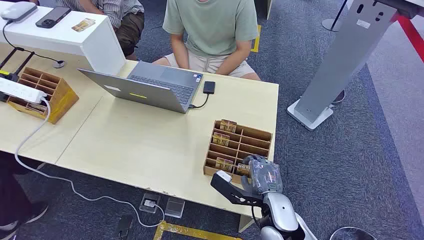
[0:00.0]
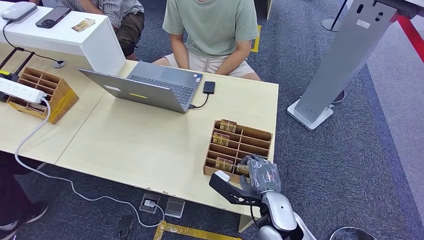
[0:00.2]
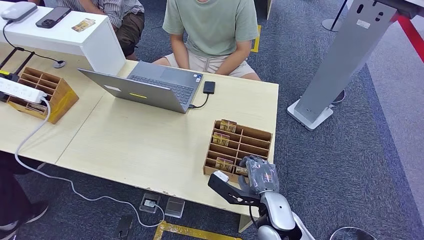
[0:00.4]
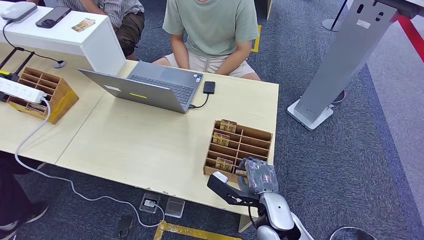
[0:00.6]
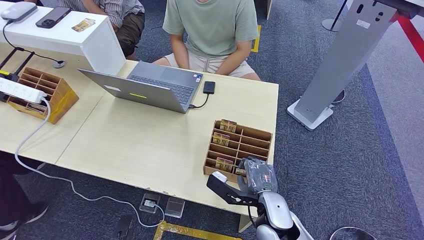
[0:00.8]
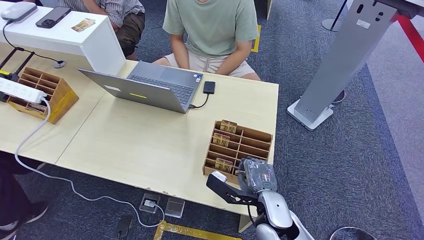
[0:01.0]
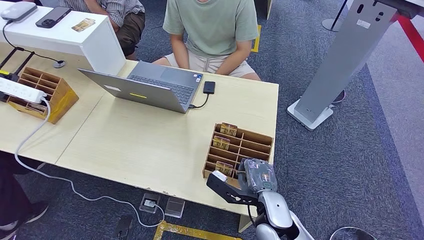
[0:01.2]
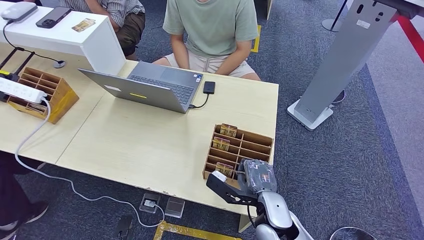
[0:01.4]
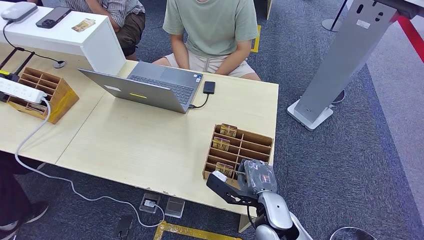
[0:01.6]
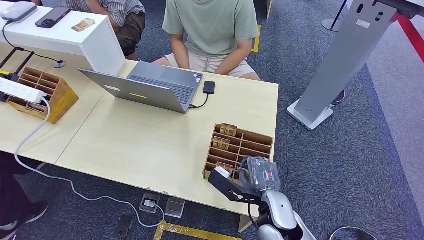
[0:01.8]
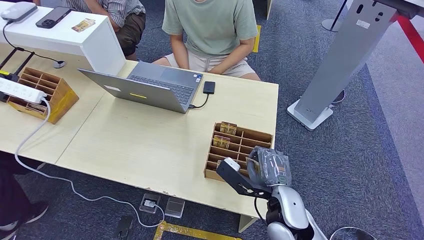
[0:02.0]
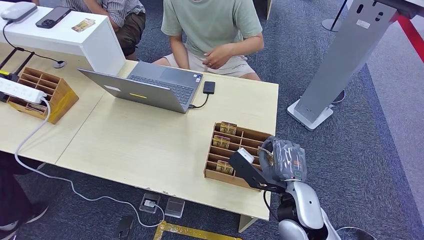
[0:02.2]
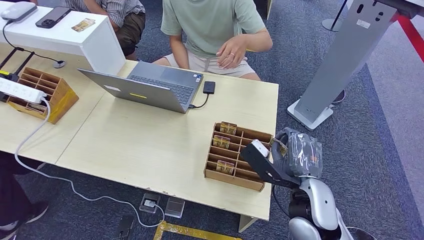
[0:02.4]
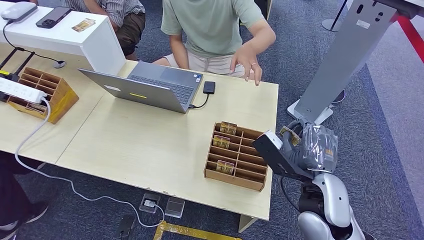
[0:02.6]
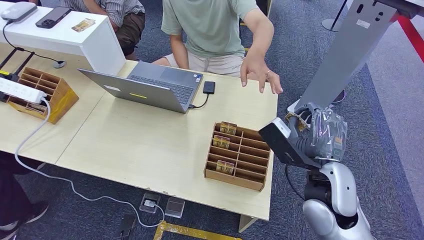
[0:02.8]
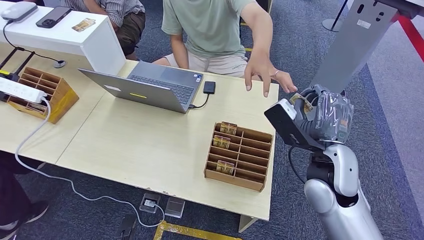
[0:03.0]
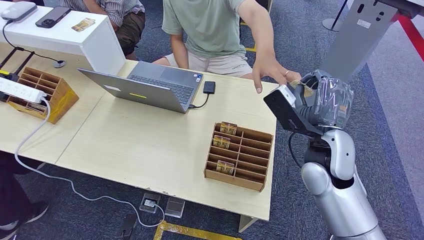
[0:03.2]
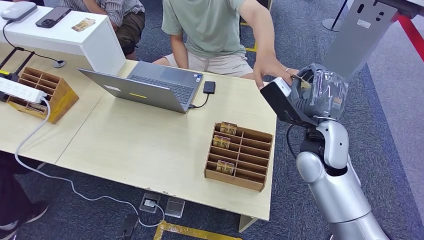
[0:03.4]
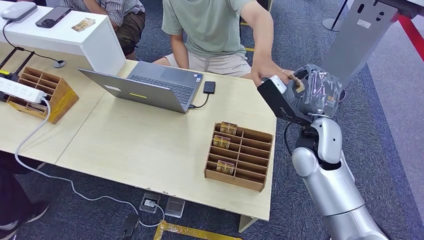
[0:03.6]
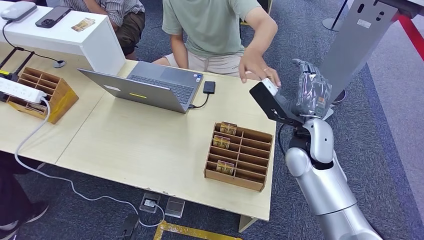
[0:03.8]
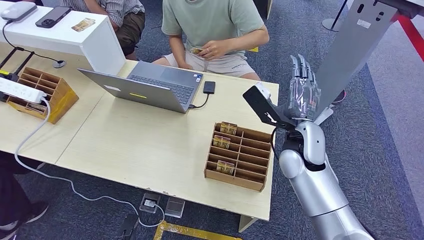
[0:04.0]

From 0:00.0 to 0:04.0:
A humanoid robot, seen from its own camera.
Step, from 0:00.0 to 0:02.0: Pick up the room card from the card holder.
Step, from 0:02.8 to 0:04.0: Hand the room card to the target.
From 0:01.4 to 0:02.6: The right hand goes roughly 15 cm upward, to the right and forward.
From 0:02.6 to 0:04.0: The right hand moves forward and to the left, about 10 cm.
